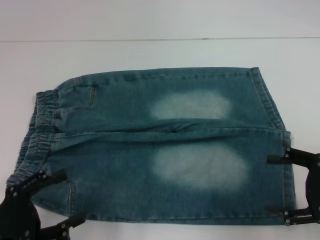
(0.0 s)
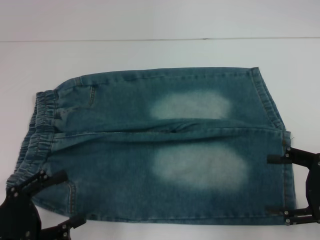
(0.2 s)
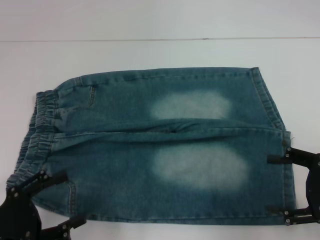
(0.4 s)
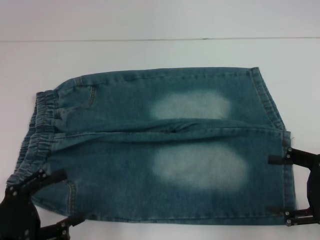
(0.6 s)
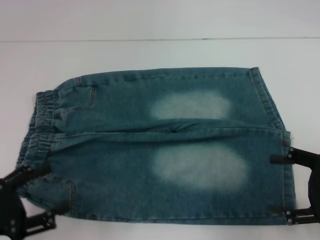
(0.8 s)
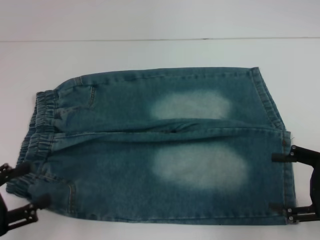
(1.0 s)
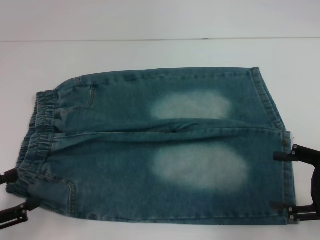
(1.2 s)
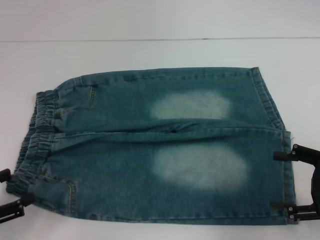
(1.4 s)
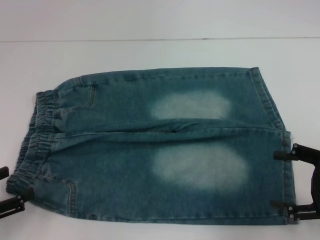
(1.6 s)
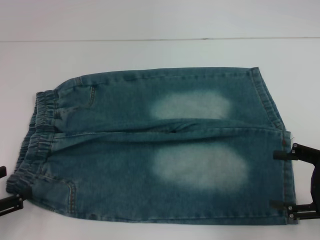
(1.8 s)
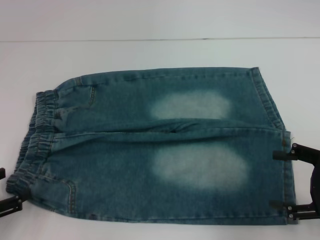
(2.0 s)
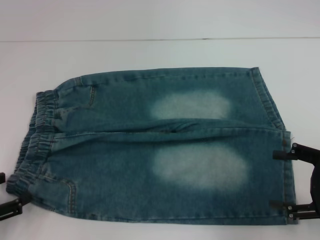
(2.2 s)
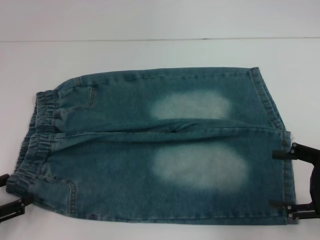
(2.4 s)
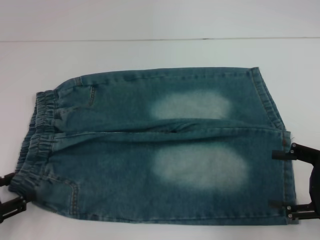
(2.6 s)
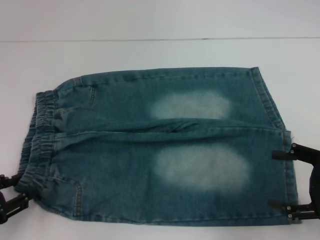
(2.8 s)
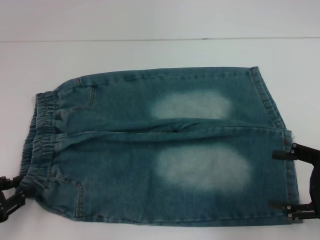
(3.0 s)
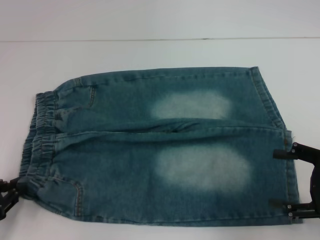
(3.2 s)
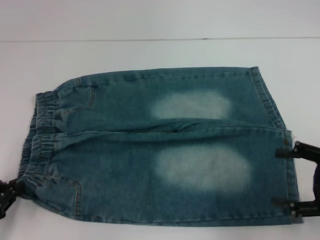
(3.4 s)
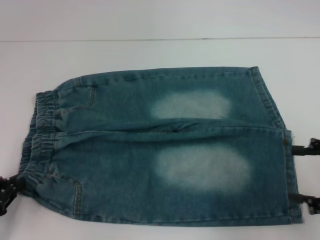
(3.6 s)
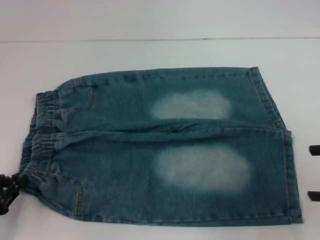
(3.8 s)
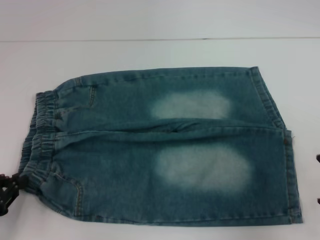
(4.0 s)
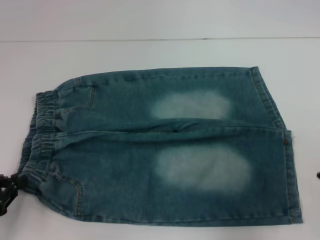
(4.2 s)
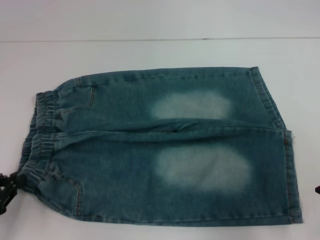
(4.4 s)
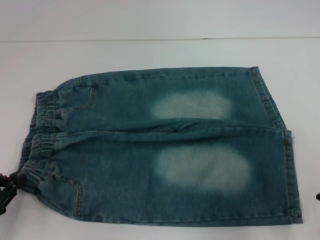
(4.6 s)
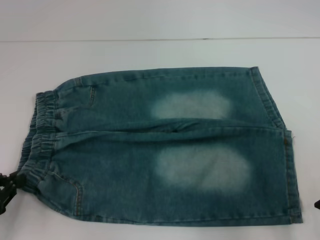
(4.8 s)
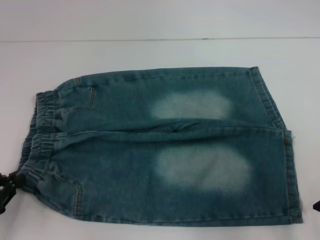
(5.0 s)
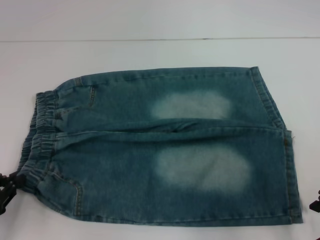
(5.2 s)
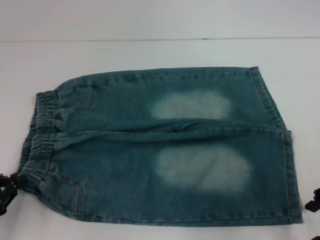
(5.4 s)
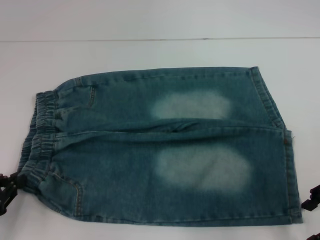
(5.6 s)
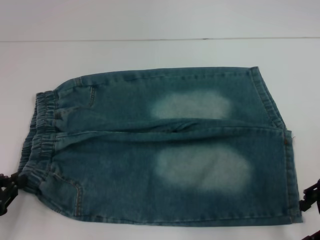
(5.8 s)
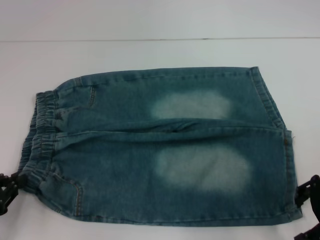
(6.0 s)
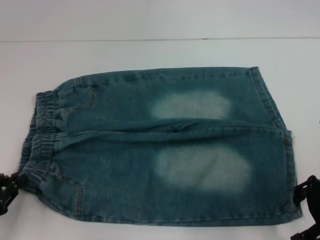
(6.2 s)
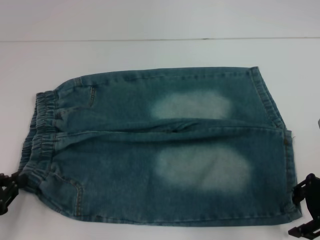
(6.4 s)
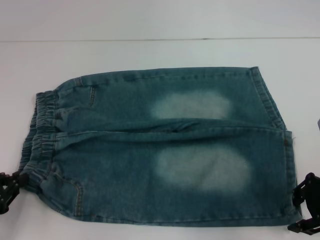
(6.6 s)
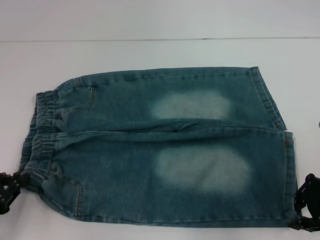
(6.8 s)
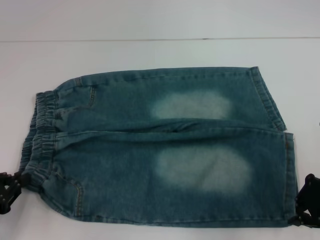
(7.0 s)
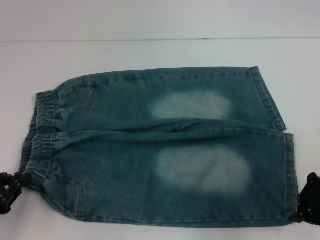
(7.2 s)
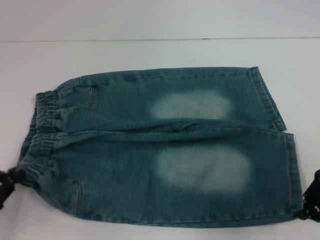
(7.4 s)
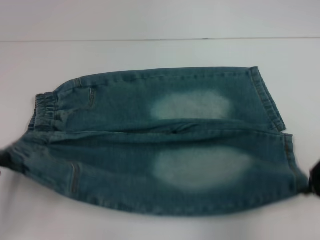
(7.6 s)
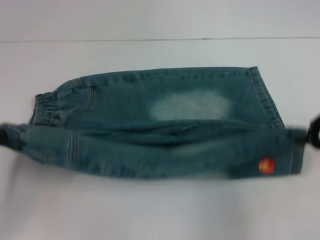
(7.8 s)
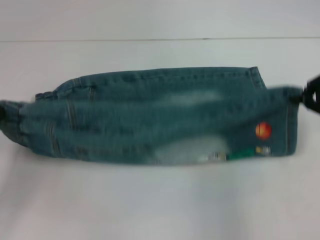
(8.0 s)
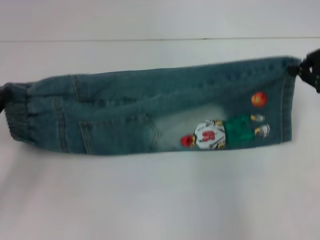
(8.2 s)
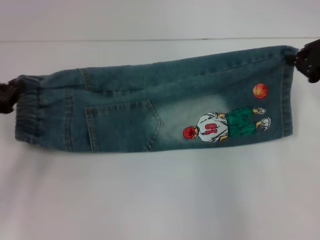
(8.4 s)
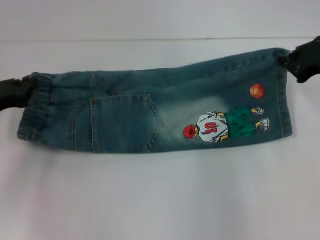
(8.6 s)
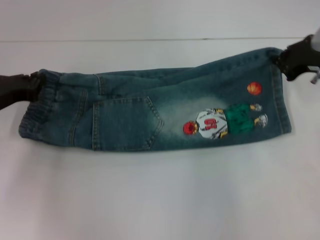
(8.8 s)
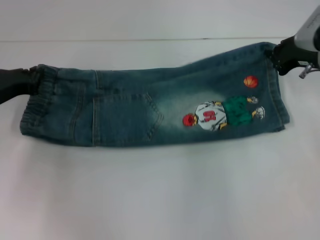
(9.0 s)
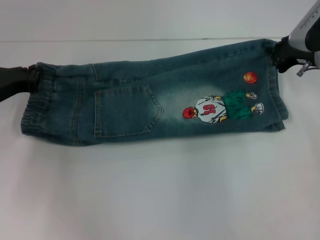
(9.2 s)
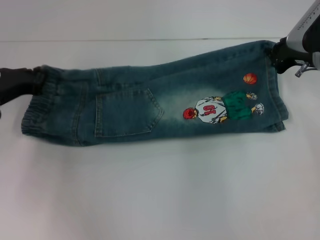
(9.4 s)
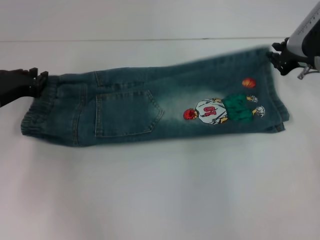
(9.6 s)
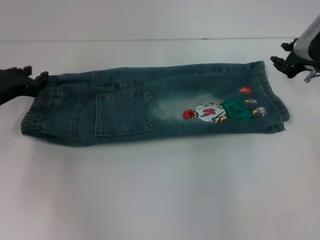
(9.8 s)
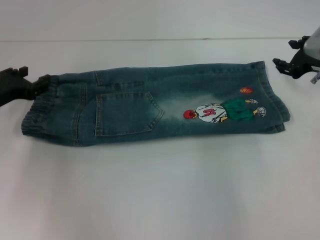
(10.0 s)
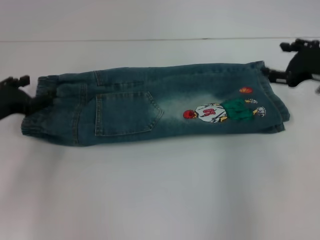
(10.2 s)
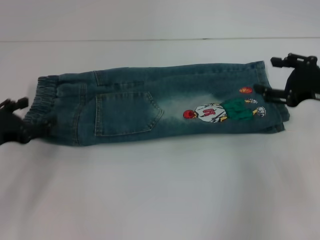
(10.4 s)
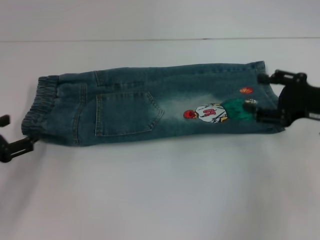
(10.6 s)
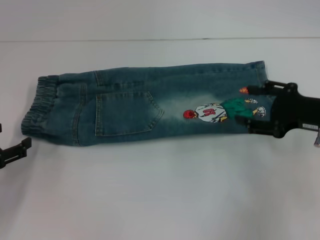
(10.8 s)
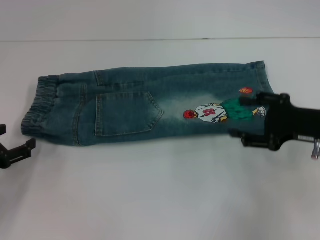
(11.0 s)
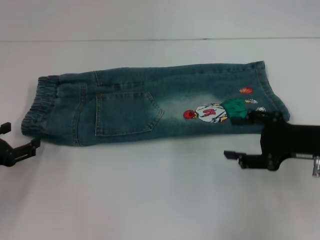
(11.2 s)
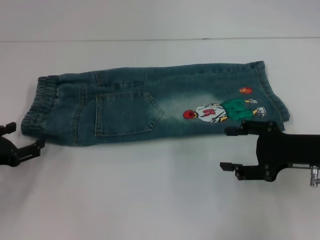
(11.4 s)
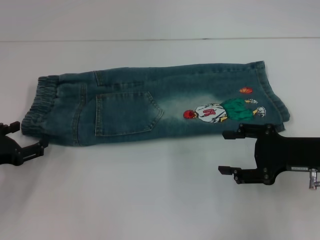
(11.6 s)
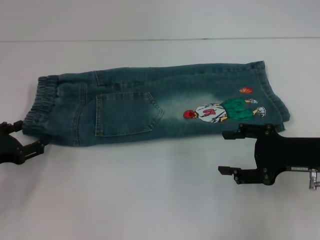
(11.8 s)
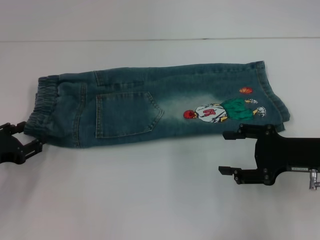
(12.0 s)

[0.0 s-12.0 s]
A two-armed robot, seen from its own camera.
Step, 0.0 to 3.8 s: Hold the lower left waistband with your left hand.
Step, 4.0 to 7.2 s: Grab the lower right pant leg with your right hand.
Step, 7.4 to 9.6 s: Fold upward with your right hand.
0.0 to 1.6 s: The left gripper goes about 5 cm to the left.
1.6 to 3.0 s: The left gripper closes.
3.0 to 4.4 s: The right gripper heads upward, covering about 5 cm. Meanwhile the left gripper closes.
4.4 to 6.0 s: The right gripper moves to the left, about 5 cm.
6.0 to 7.6 s: The right gripper closes its fingers.
7.6 to 9.0 s: The grippers both shift forward by about 15 cm.
9.0 to 10.4 s: Both grippers travel together backward, approximately 10 cm. The right gripper opens its fingers. The left gripper opens.
10.4 to 12.0 s: The right gripper goes approximately 5 cm backward.

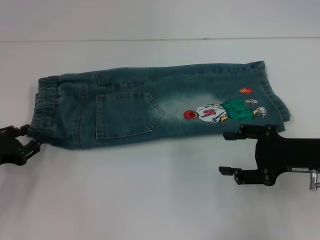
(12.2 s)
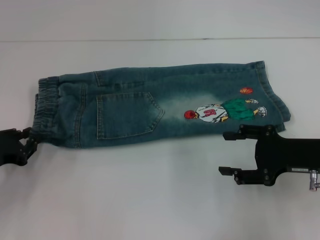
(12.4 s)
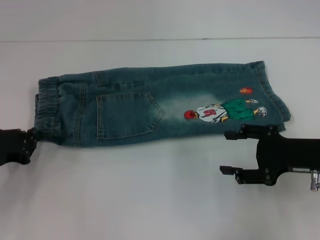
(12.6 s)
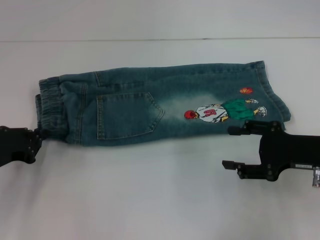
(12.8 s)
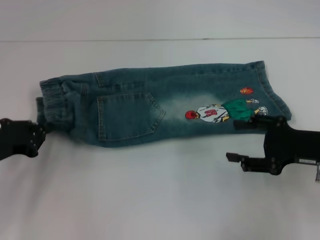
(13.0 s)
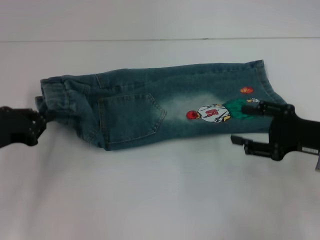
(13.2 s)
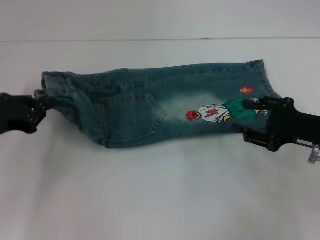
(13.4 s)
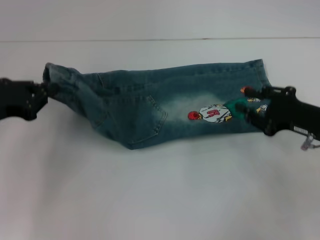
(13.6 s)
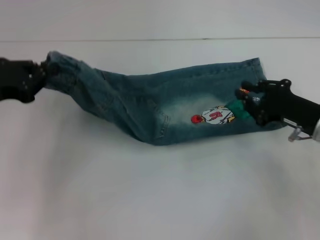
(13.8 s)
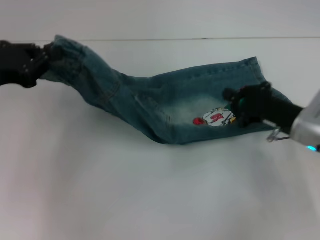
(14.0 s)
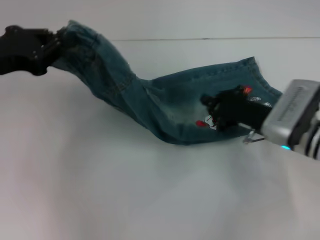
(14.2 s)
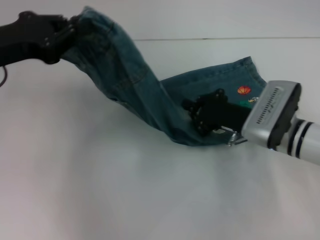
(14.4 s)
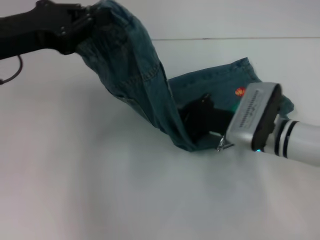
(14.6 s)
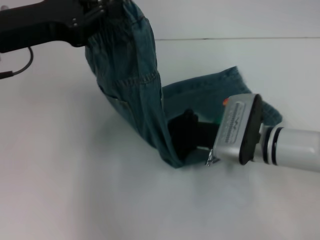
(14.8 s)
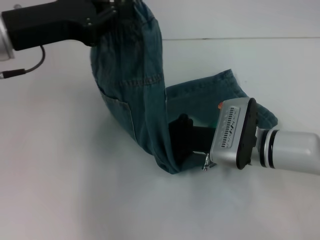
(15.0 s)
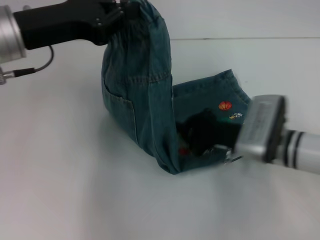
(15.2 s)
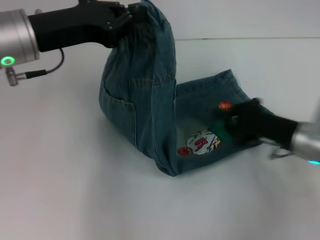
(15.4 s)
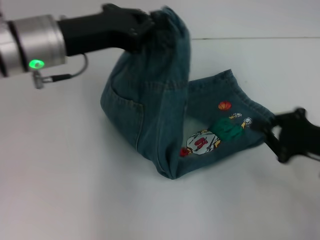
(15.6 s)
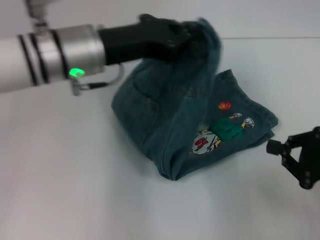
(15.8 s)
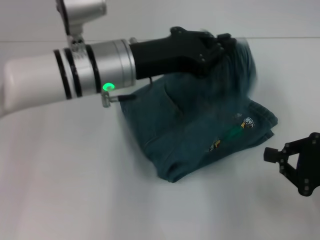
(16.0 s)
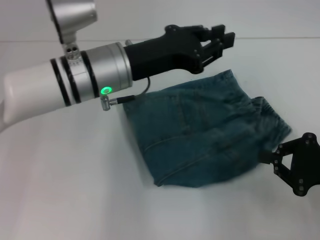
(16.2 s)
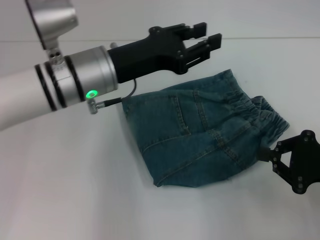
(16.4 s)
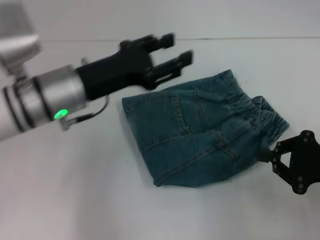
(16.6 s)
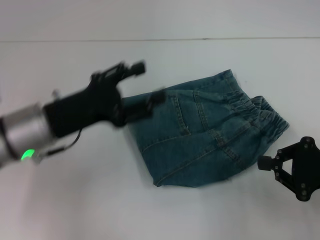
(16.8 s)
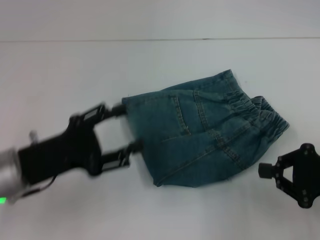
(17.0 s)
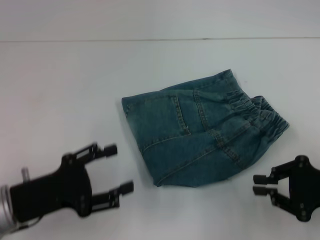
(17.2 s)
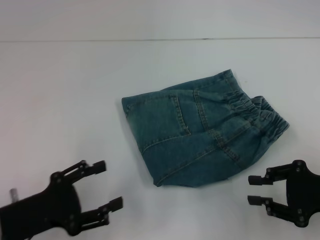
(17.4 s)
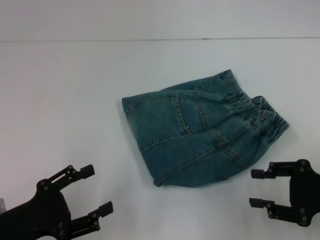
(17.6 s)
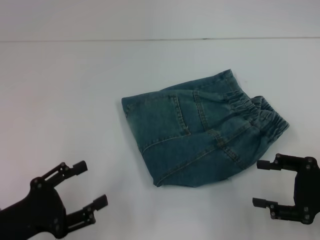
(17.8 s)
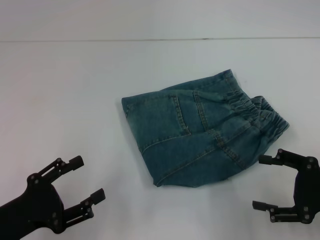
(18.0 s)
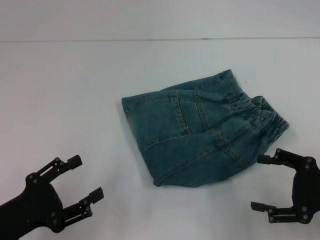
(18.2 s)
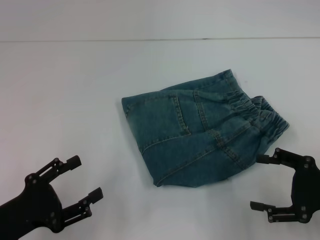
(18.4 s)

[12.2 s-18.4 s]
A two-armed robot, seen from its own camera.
Step, 12.8 to 14.8 s: Press the middle of the pants with your right hand.
Step, 15.0 to 16.2 s: Fold to the right with your left hand.
12.2 to 13.8 s: The left gripper is displaced upward by about 10 cm, and closes up. The right gripper closes.
13.8 to 15.4 s: The left gripper moves to the right, upward and forward, some 15 cm. Meanwhile the right gripper goes to the left and returns, roughly 15 cm each way.
15.4 to 16.8 s: The right gripper goes approximately 10 cm to the right and backward, while the left gripper moves downward and backward, some 10 cm, moves roughly 10 cm to the right and comes back, and opens its fingers.
16.8 to 18.4 s: The left gripper travels backward, to the left and downward by about 15 cm. The right gripper opens its fingers.

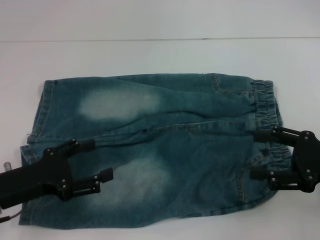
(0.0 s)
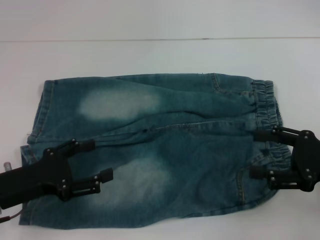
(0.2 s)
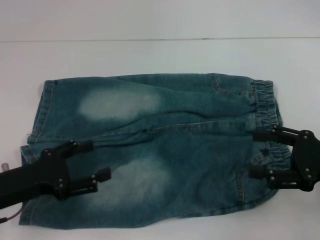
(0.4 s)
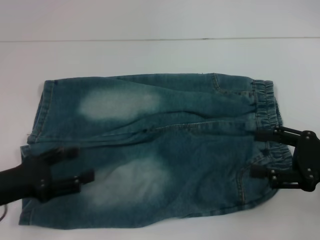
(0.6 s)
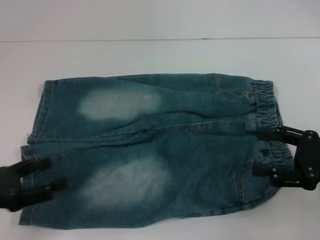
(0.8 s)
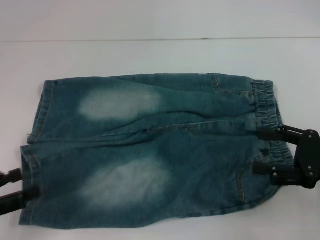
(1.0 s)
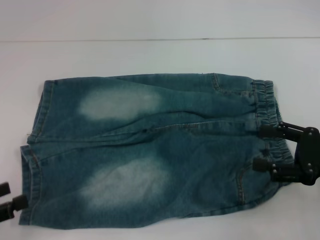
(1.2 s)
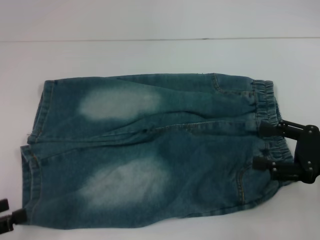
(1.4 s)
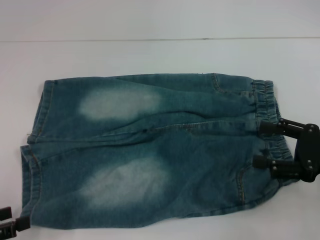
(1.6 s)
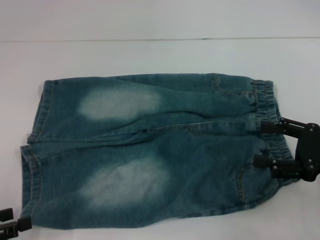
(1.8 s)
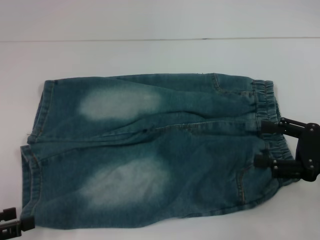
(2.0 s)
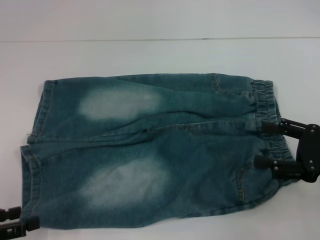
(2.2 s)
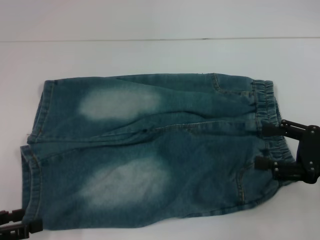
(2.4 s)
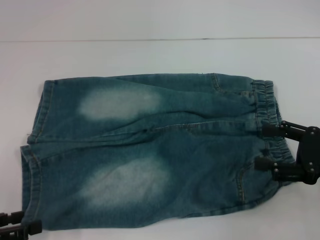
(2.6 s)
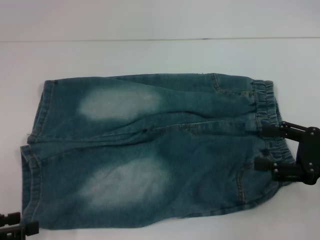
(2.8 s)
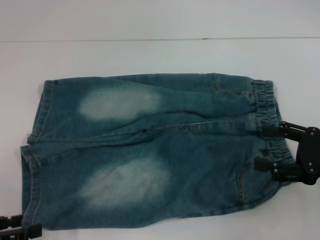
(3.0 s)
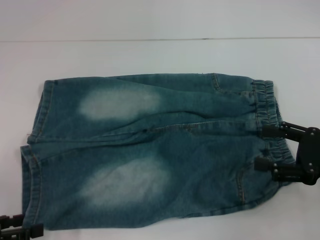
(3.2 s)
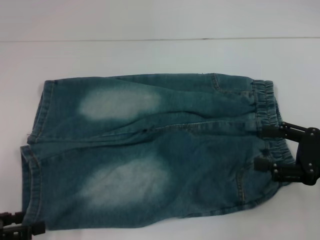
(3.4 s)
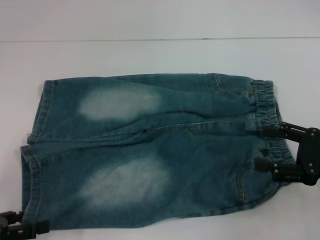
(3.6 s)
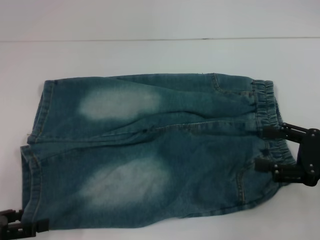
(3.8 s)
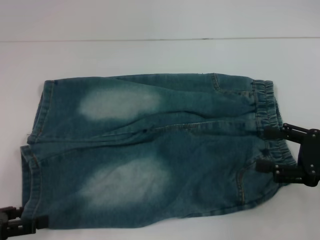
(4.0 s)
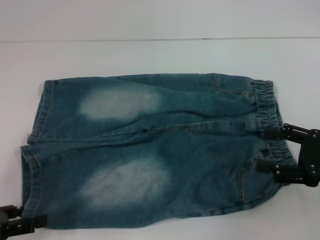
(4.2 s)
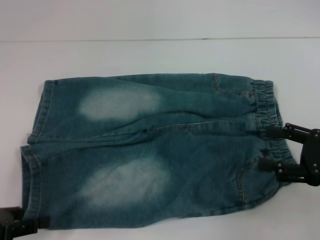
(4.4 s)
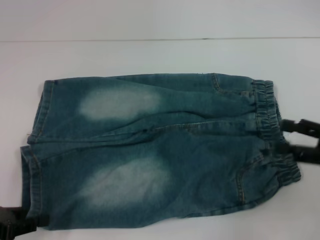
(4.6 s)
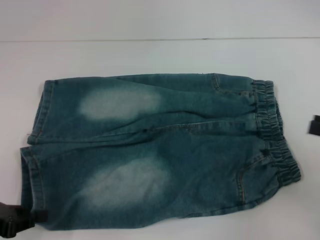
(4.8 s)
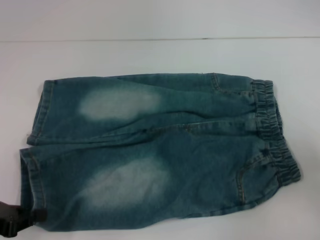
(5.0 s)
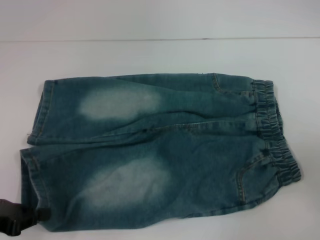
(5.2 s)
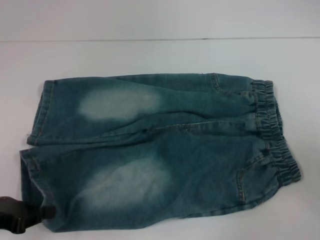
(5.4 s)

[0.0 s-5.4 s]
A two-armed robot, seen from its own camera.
Step, 0.0 to 4.8 s: Grab the lower left pant leg with your left hand.
0.0 to 1.4 s: The left gripper heads to the left and backward, covering some 10 cm.
1.4 to 4.0 s: The grippers stay close to where they were, moving slightly.
4.0 to 5.4 s: The left gripper closes. The right gripper shifts some 10 cm to the right.
